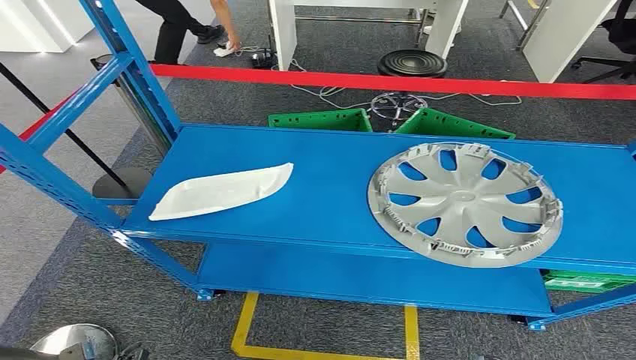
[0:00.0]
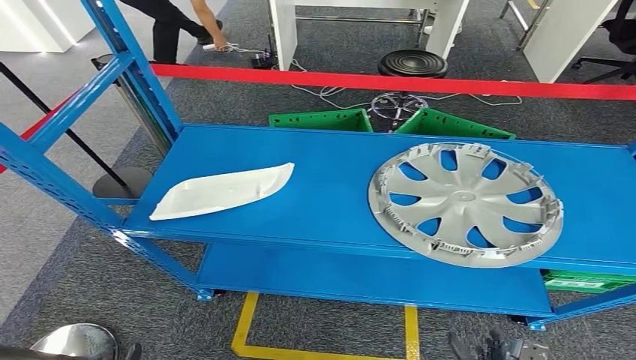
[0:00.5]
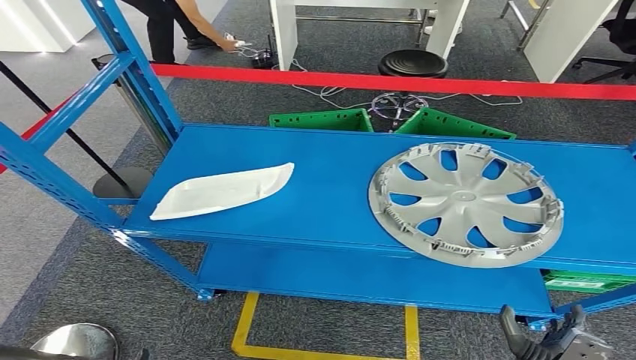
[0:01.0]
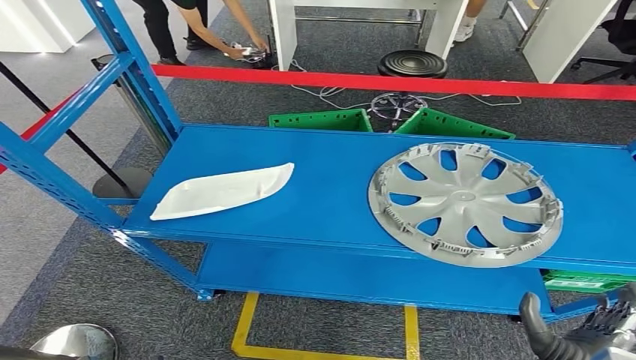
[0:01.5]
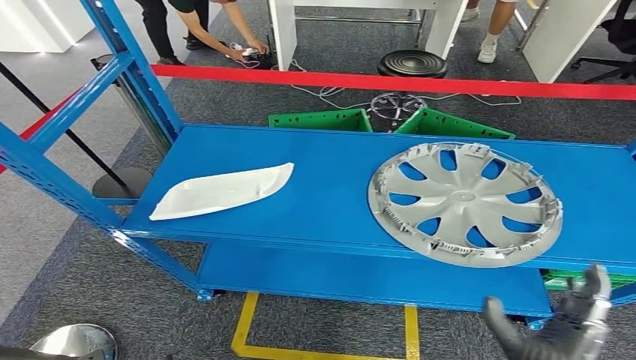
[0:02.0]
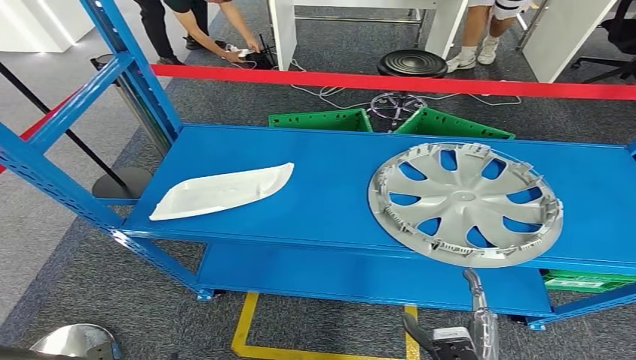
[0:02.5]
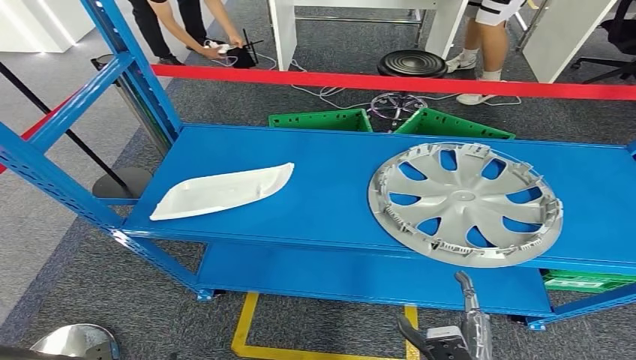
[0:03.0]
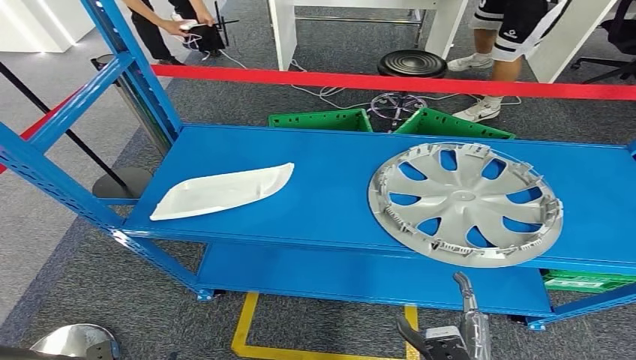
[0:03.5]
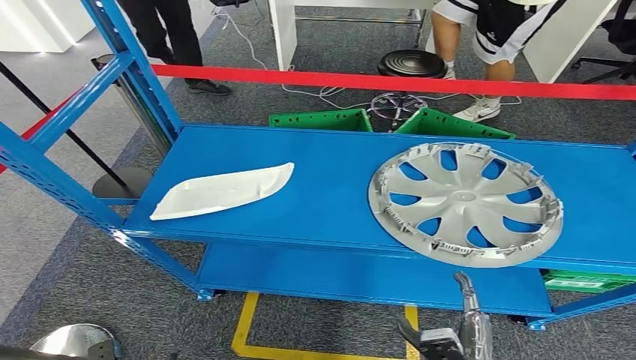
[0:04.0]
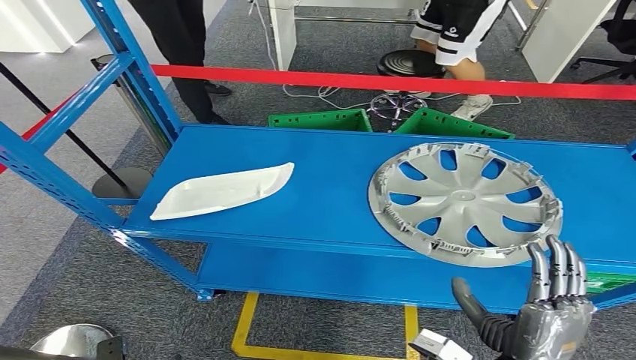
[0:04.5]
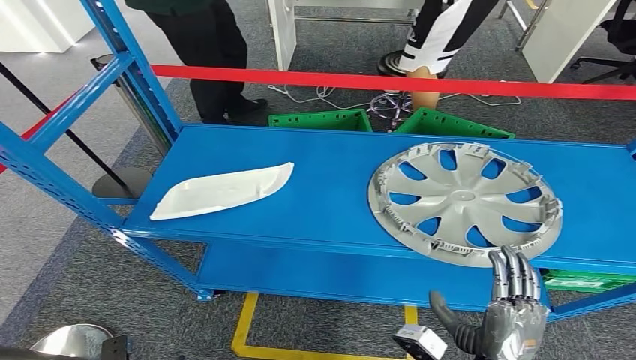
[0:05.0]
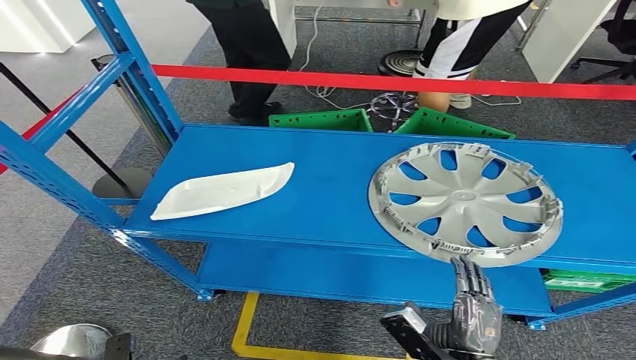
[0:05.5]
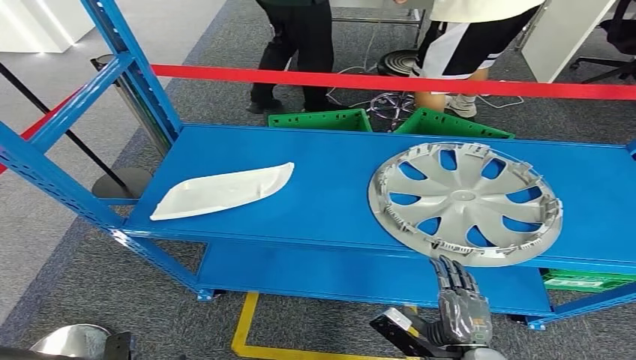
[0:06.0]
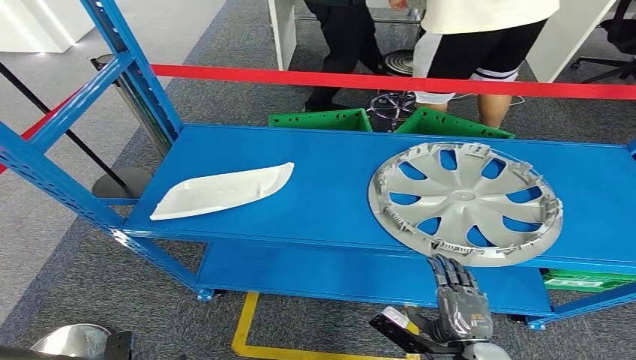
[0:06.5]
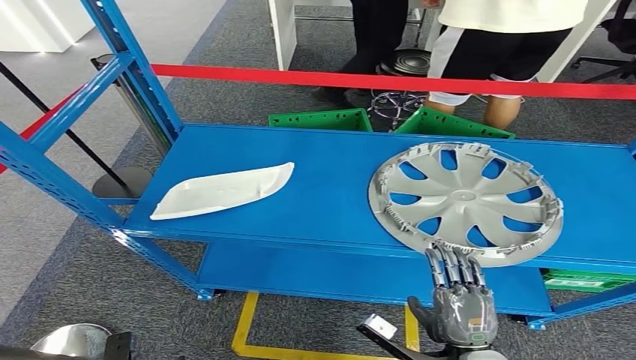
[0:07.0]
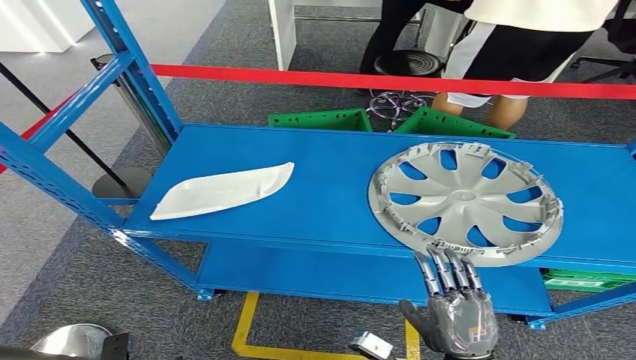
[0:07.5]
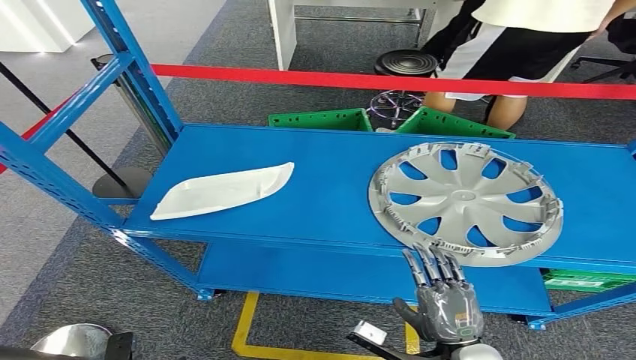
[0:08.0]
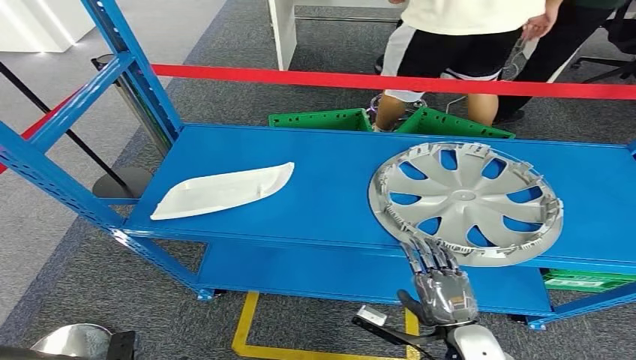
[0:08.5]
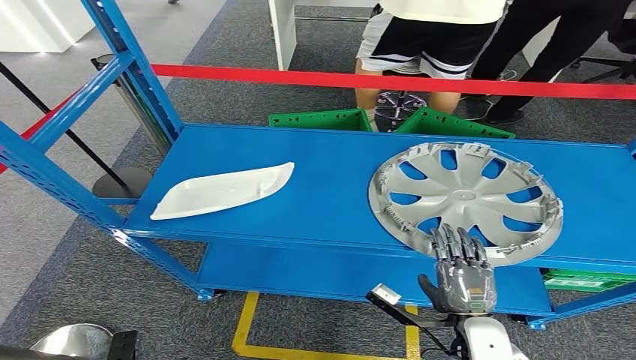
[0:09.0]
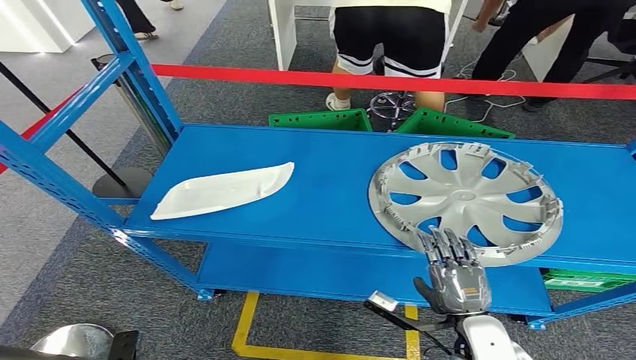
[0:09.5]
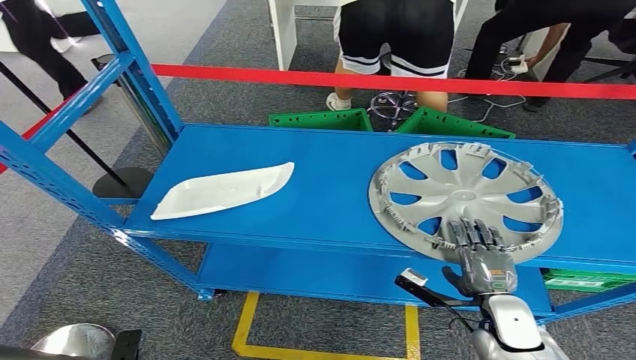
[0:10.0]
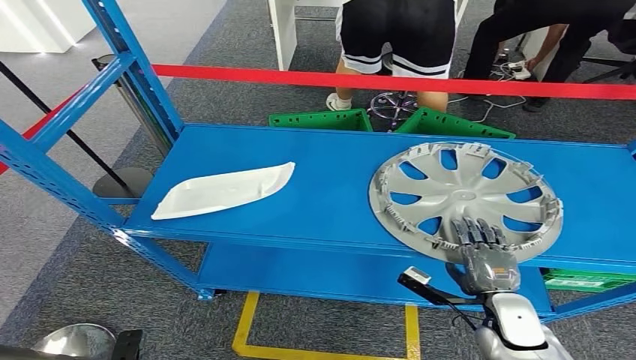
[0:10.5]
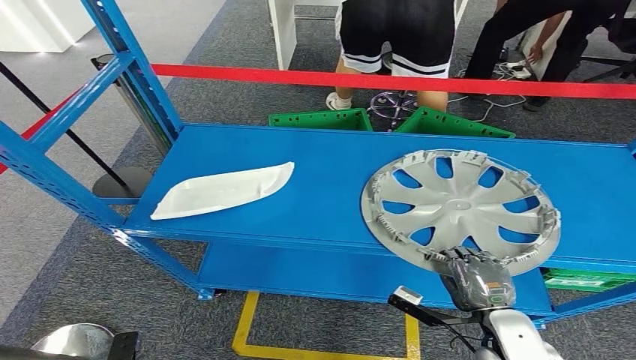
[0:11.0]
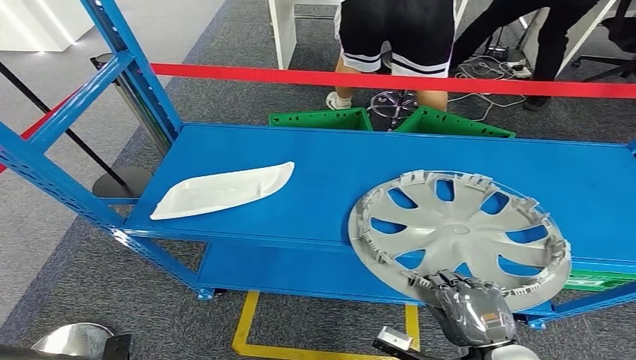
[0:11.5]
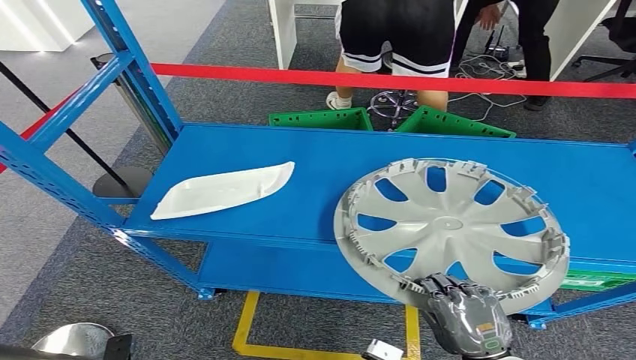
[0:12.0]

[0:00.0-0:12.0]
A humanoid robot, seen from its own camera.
0:02.0 to 0:04.0: The right hand moves downward, about 10 cm.
0:04.0 to 0:06.0: The right hand reaches roughly 10 cm upward, then returns.
0:08.0 to 0:10.0: The right hand shifts approximately 10 cm forward and to the right.

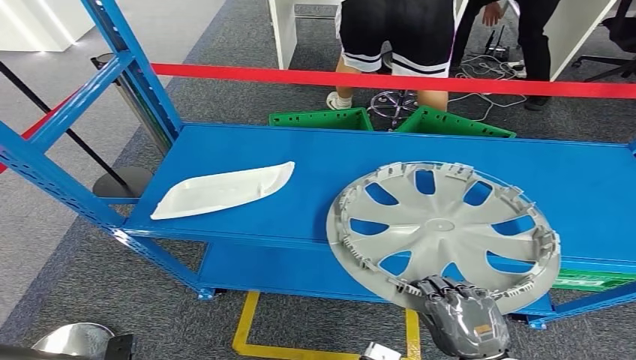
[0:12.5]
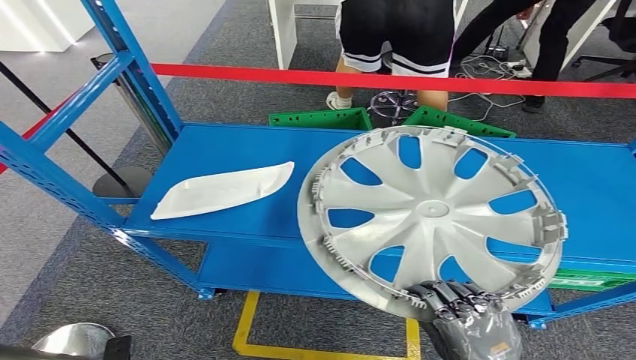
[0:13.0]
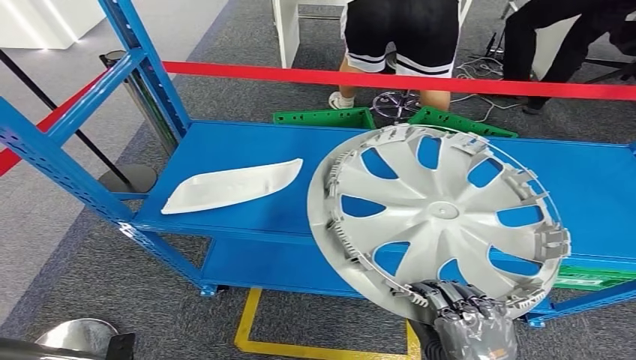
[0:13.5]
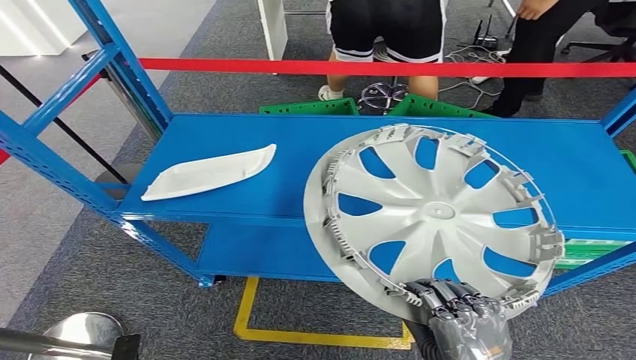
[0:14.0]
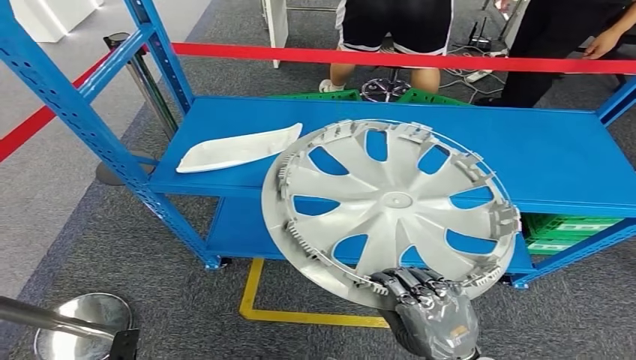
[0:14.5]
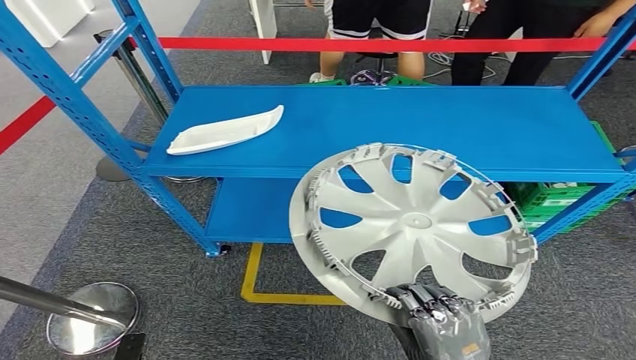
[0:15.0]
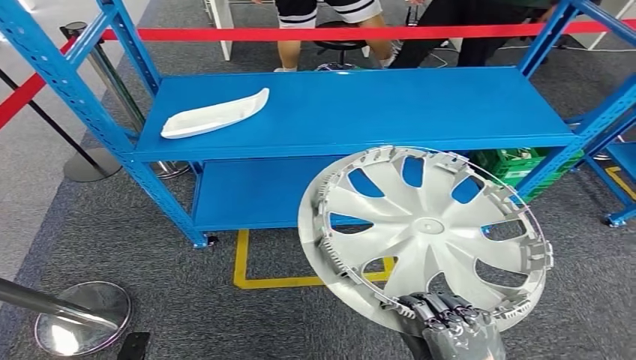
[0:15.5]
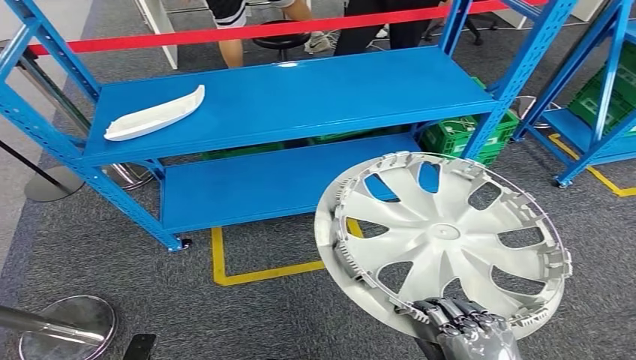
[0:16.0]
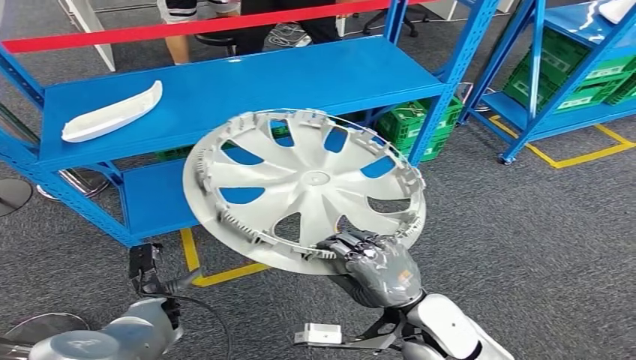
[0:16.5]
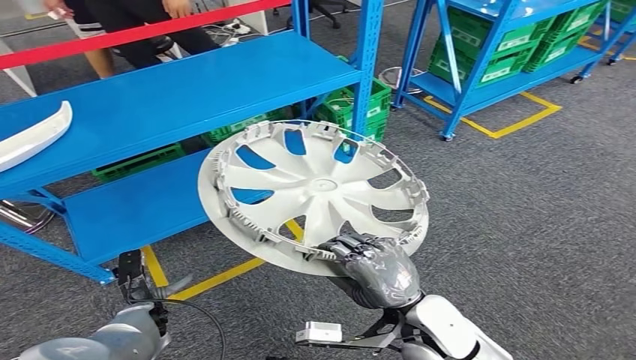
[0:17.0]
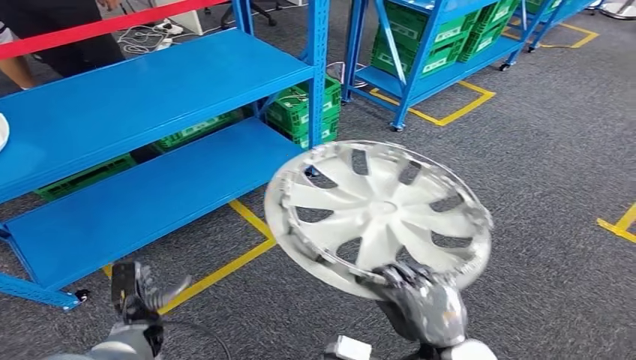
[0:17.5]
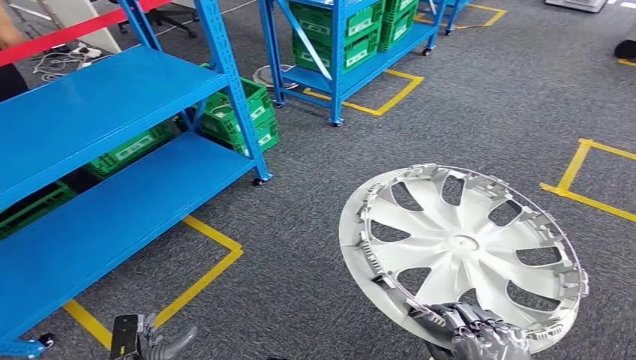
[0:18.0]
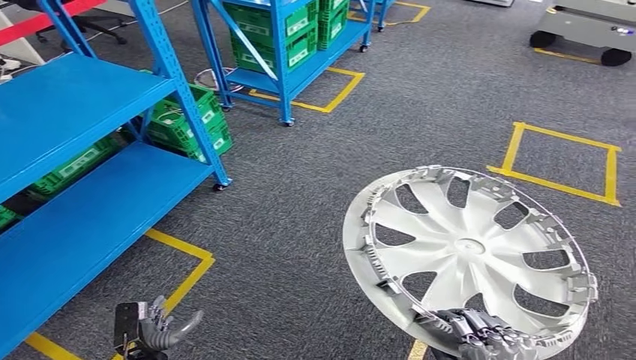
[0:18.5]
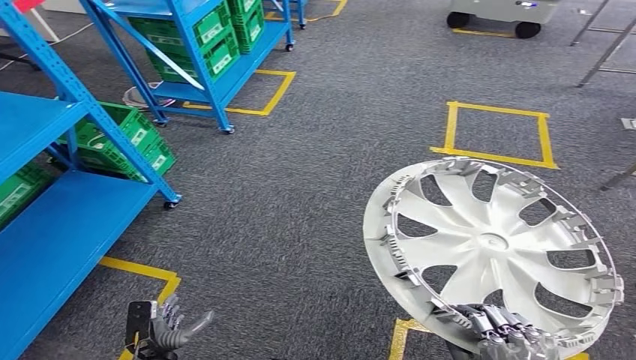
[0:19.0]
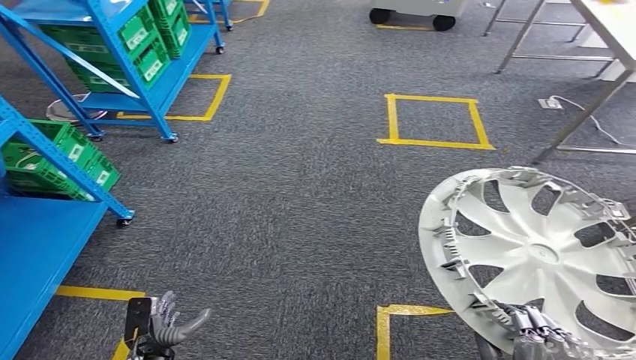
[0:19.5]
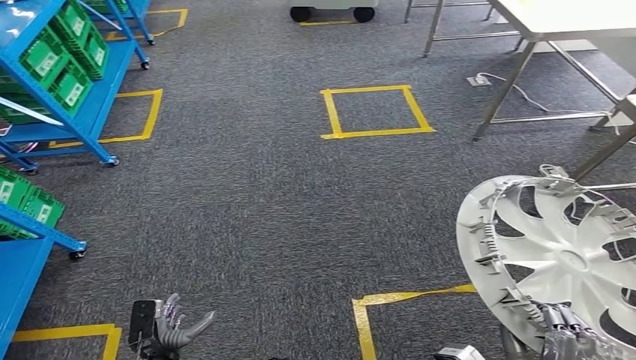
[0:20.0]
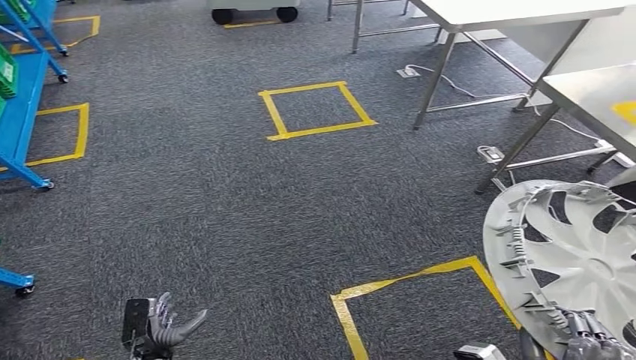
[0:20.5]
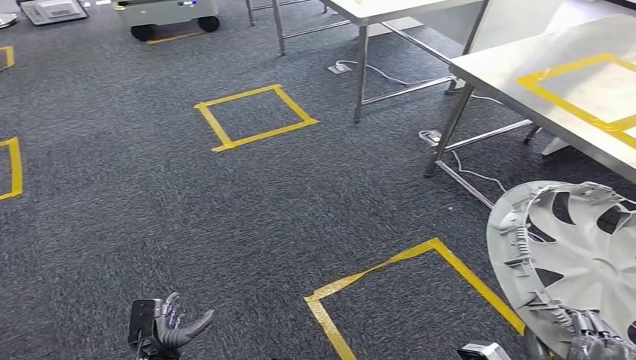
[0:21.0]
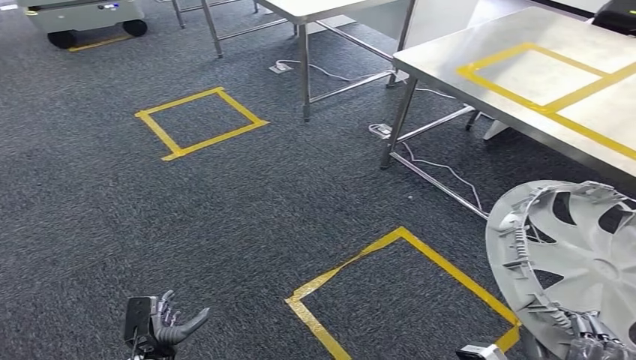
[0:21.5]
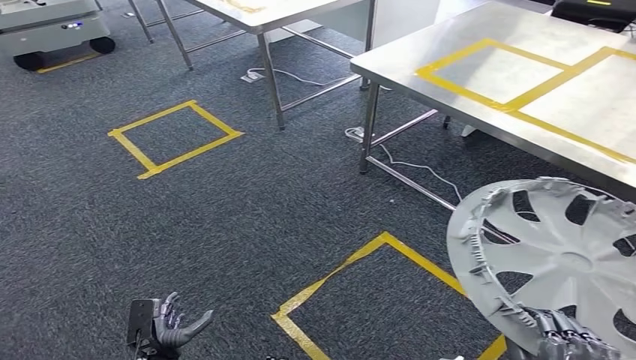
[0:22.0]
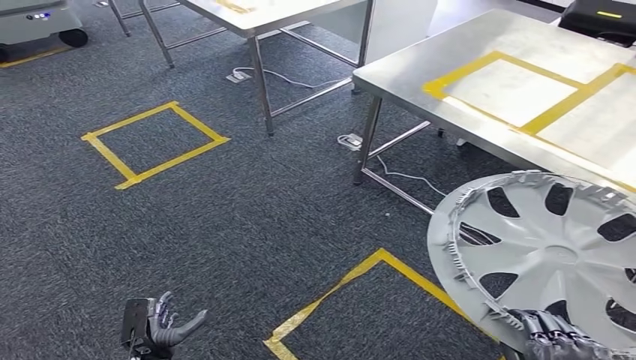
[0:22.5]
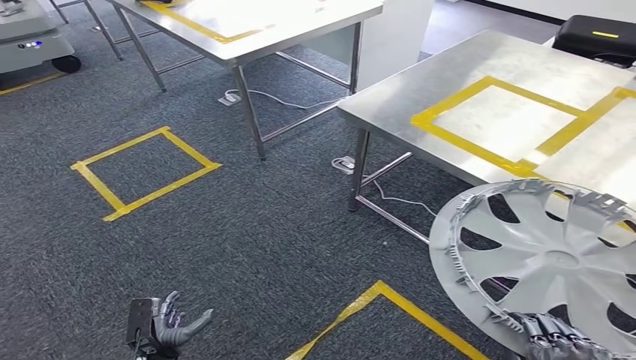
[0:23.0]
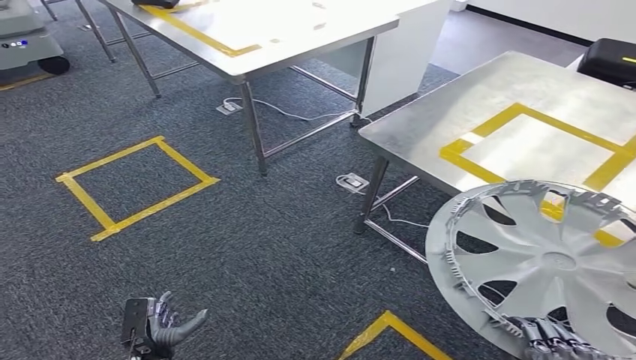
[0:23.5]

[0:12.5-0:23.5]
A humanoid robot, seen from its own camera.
Step, 0:12.5 to 0:14.5: Pick up the small component from the shelf.
